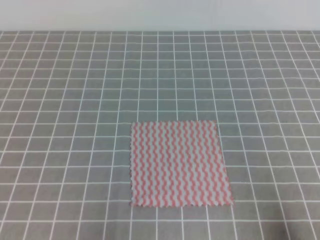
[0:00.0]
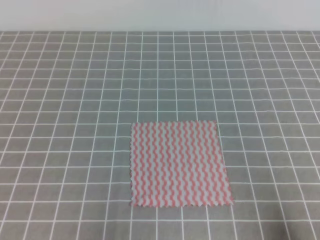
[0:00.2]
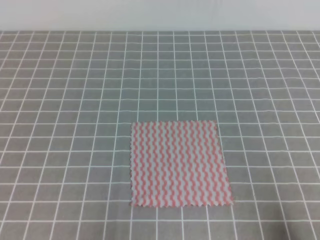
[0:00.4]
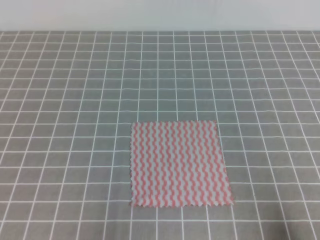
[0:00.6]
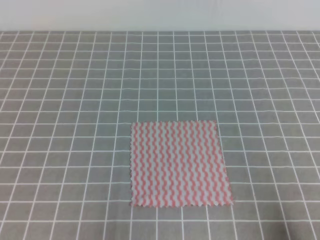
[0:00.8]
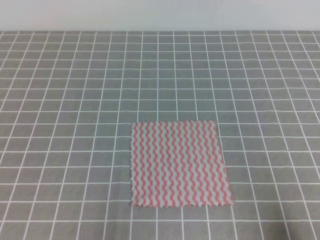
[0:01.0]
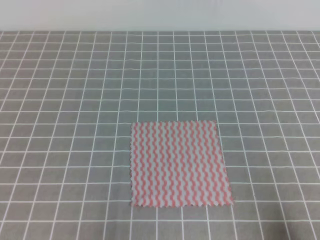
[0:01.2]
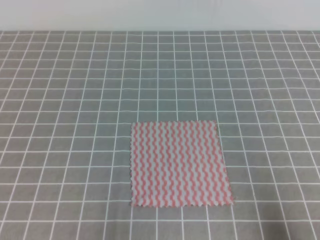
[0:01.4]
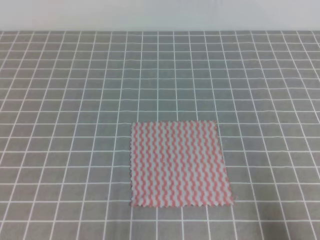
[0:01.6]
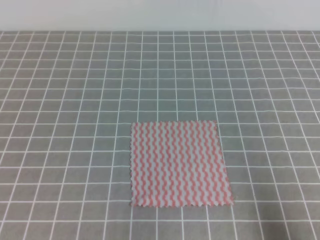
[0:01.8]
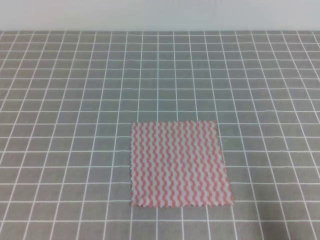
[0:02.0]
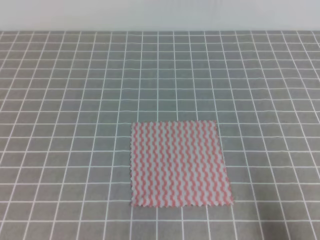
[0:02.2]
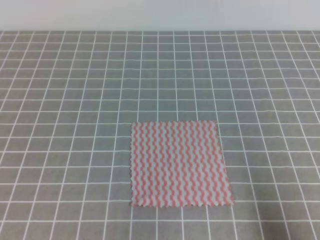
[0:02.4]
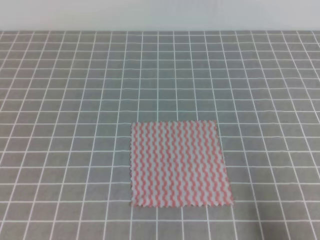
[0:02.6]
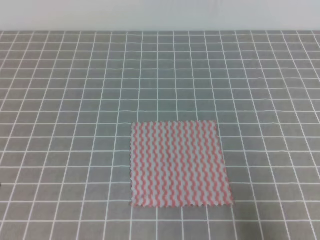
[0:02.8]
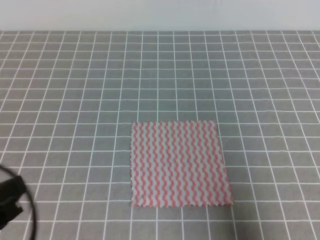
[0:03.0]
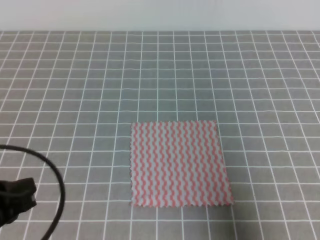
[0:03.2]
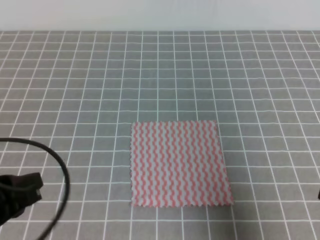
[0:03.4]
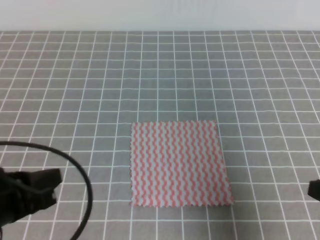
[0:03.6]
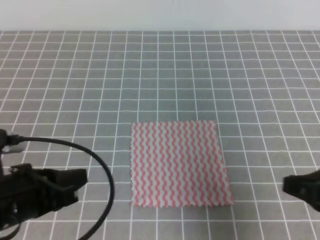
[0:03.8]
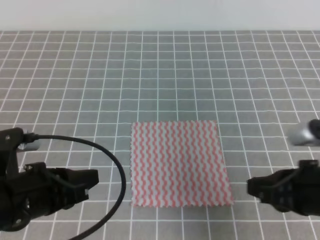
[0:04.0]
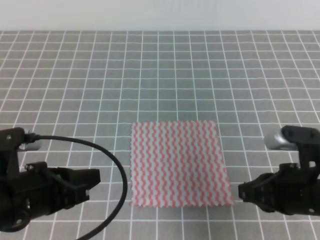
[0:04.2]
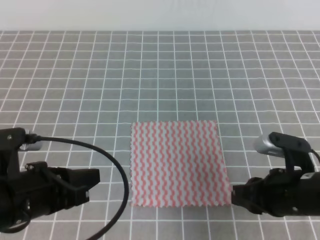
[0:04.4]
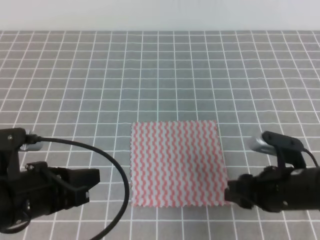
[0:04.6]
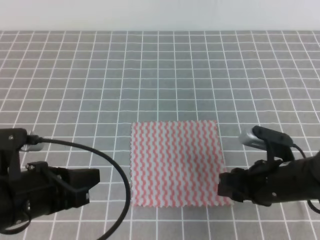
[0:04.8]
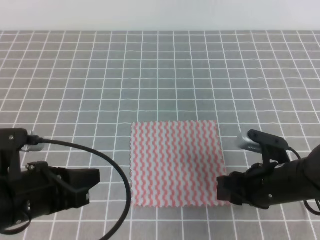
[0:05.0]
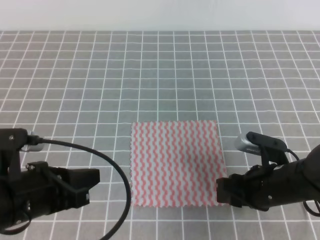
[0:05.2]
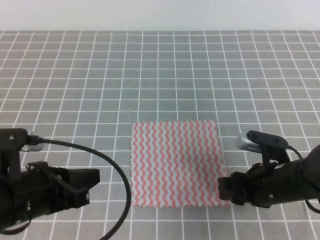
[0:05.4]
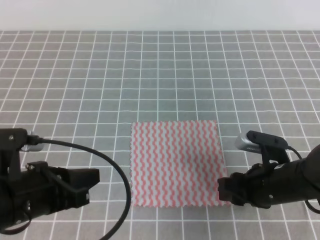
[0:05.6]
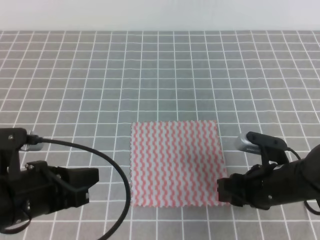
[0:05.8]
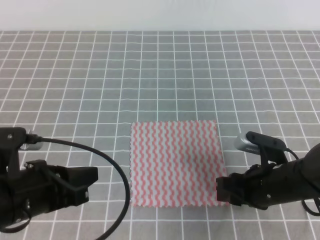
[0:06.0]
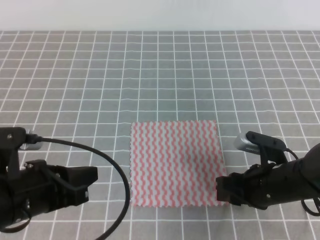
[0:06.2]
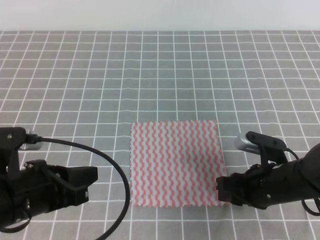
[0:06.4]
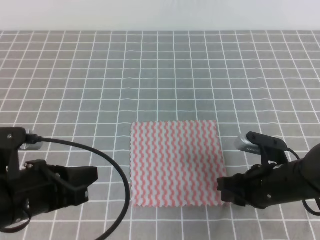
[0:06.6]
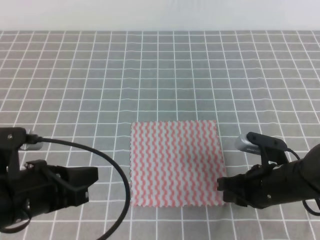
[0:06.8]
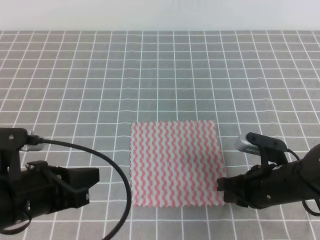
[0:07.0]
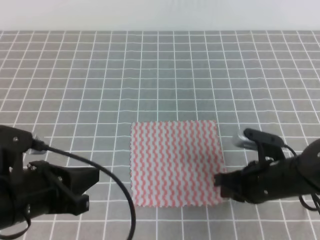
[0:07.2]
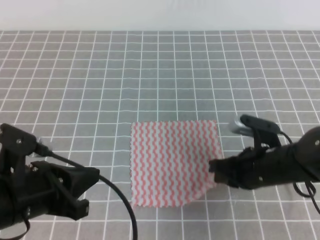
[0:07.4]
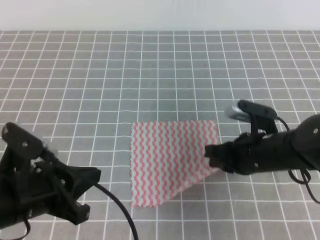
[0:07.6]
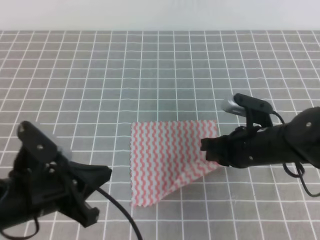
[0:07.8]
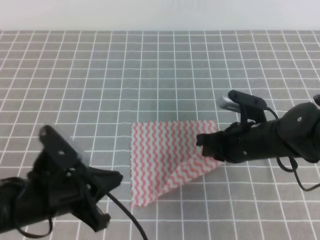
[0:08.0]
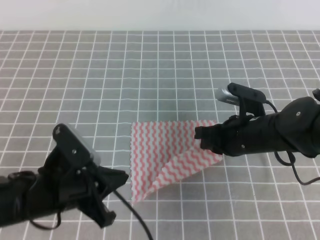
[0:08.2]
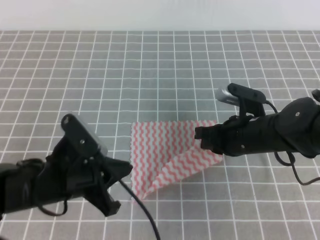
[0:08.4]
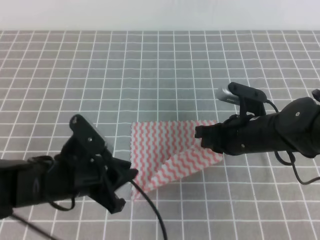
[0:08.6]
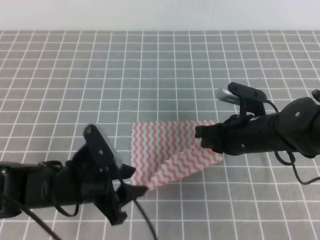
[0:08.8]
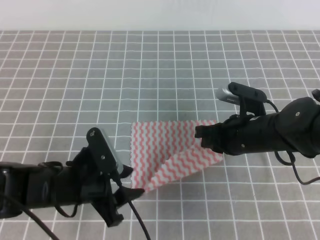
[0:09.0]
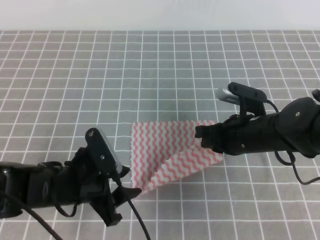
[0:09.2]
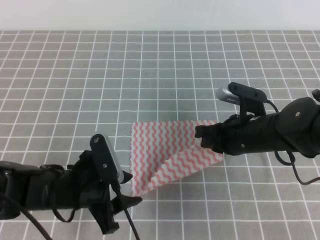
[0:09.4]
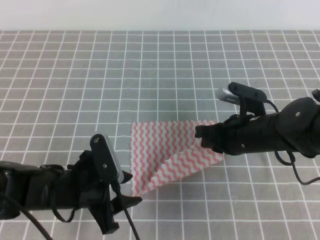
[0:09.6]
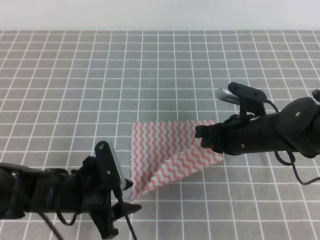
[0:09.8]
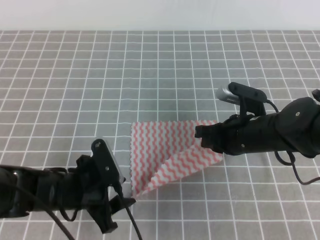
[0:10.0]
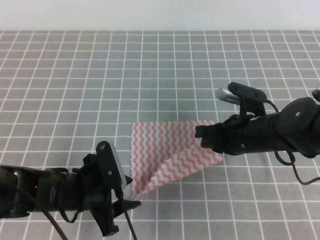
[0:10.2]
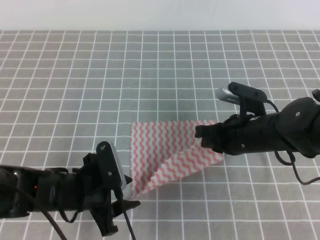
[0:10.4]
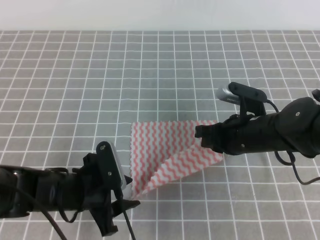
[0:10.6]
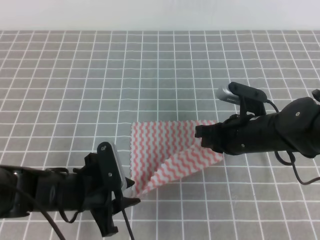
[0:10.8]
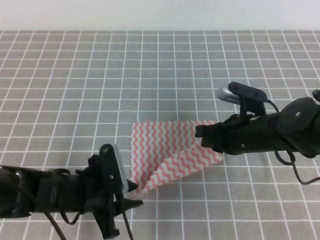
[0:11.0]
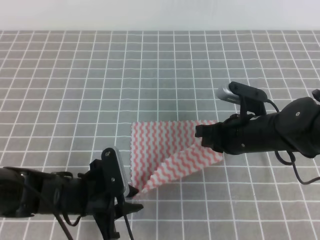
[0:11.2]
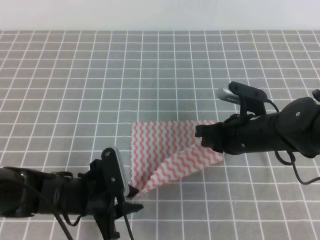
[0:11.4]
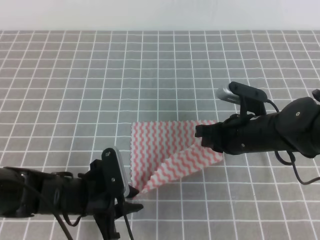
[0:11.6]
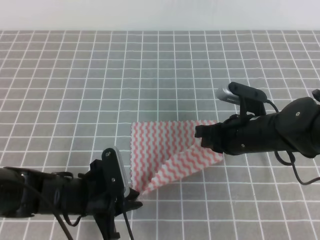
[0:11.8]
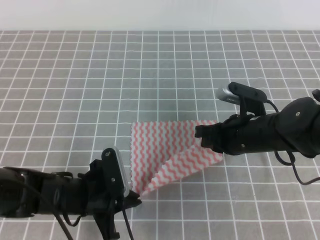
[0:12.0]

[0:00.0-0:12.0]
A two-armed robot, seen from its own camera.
0:01.6 to 0:03.0: Both grippers travel together upward, about 5 cm.
0:03.0 to 0:04.4: The left gripper shifts about 10 cm forward and to the right. The right gripper shifts some 15 cm forward, to the left and downward, and opens its fingers.
0:04.4 to 0:06.0: The right gripper ends up approximately 5 cm from where it was, and opens.
0:06.0 to 0:07.6: The right gripper closes its fingers.
0:07.6 to 0:09.0: The left gripper heads downward and forward, covering roughly 10 cm, and opens its fingers.
0:09.0 to 0:10.4: The grippers stay close to where they were, moving slightly.
0:10.4 to 0:12.0: The left gripper closes.

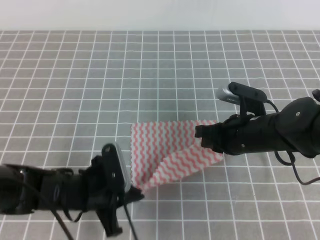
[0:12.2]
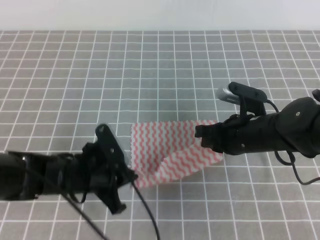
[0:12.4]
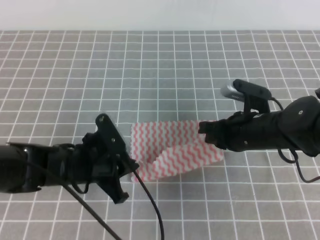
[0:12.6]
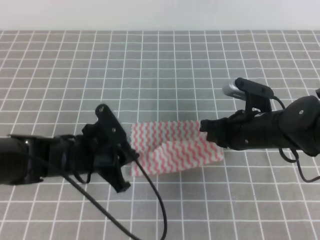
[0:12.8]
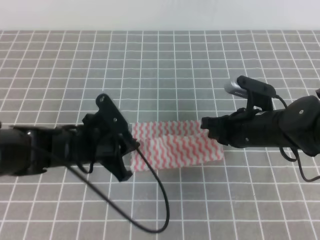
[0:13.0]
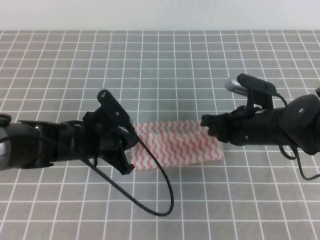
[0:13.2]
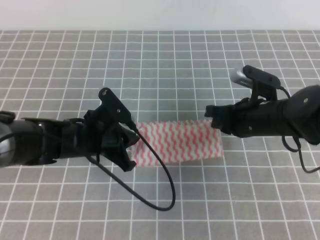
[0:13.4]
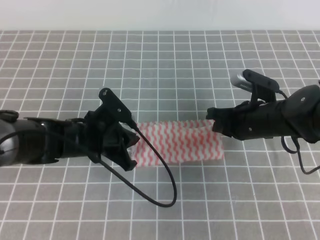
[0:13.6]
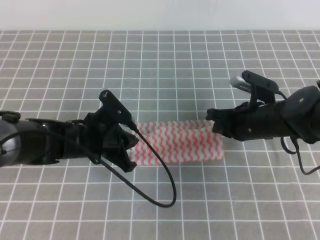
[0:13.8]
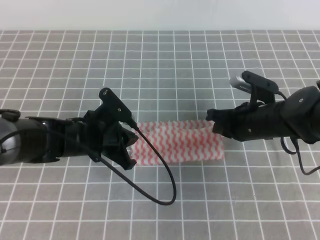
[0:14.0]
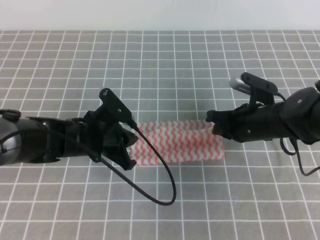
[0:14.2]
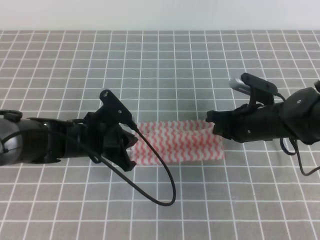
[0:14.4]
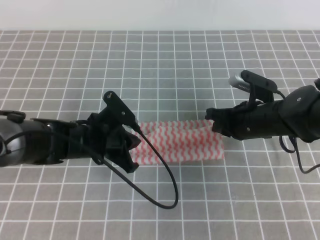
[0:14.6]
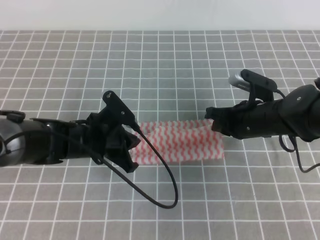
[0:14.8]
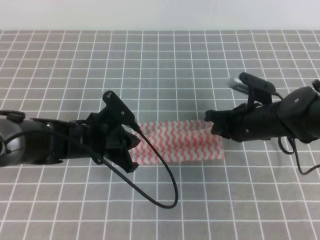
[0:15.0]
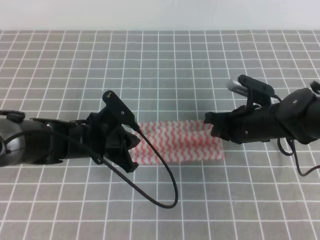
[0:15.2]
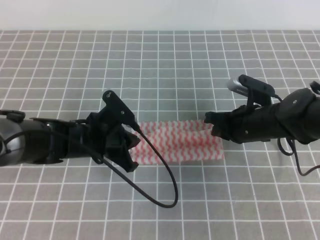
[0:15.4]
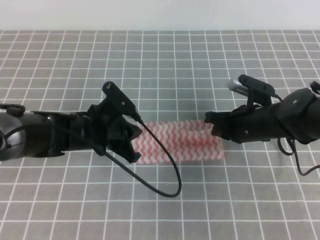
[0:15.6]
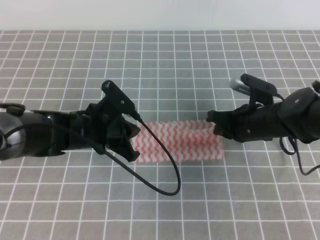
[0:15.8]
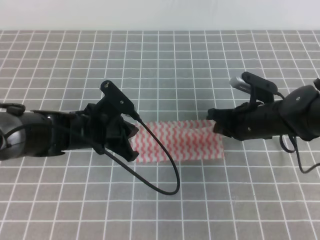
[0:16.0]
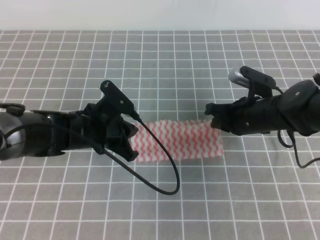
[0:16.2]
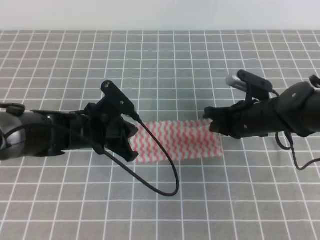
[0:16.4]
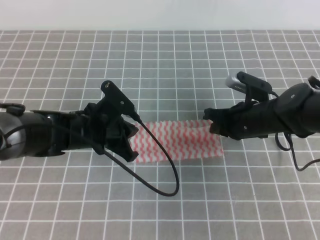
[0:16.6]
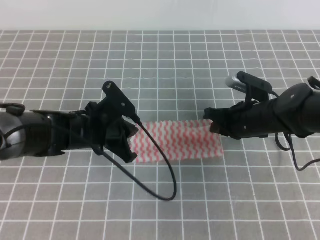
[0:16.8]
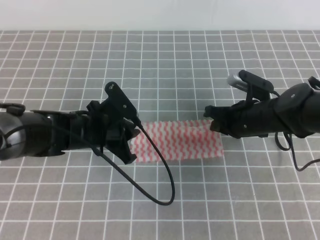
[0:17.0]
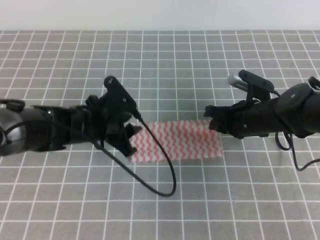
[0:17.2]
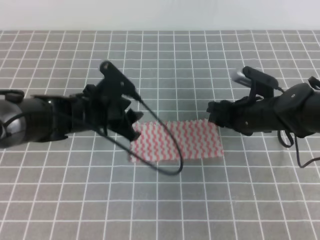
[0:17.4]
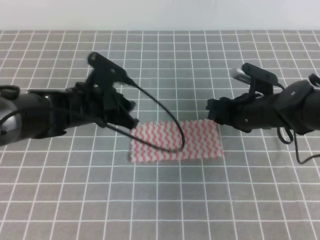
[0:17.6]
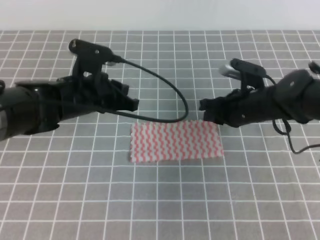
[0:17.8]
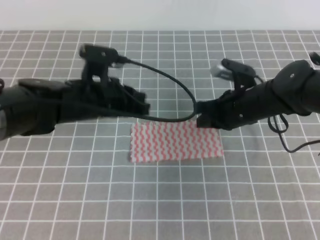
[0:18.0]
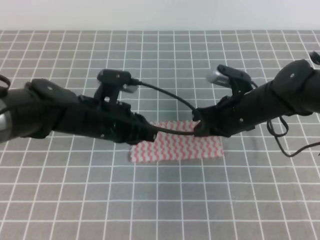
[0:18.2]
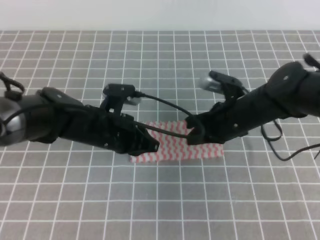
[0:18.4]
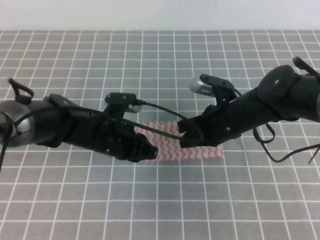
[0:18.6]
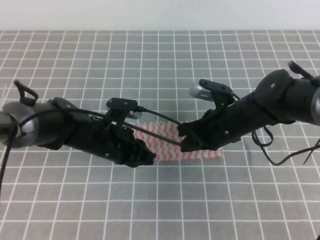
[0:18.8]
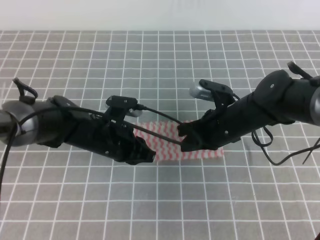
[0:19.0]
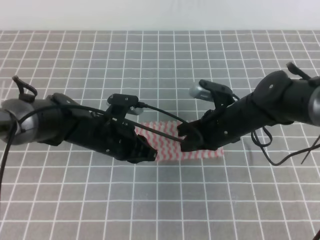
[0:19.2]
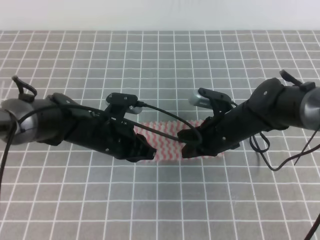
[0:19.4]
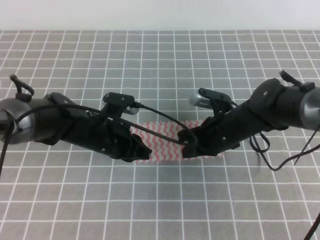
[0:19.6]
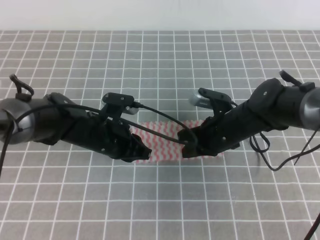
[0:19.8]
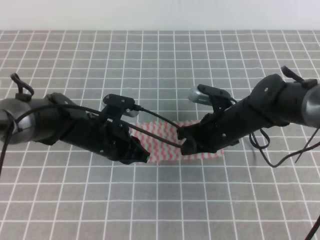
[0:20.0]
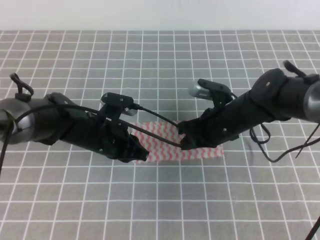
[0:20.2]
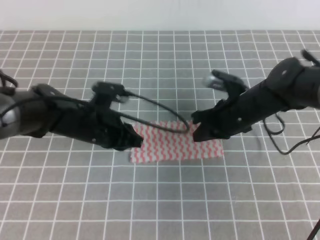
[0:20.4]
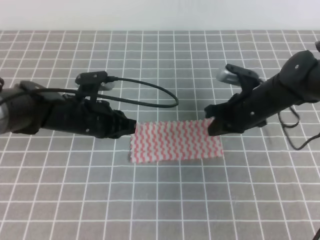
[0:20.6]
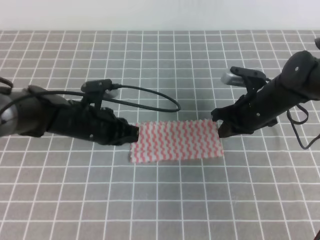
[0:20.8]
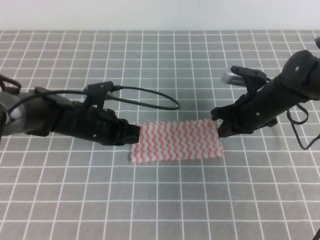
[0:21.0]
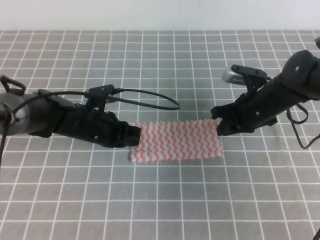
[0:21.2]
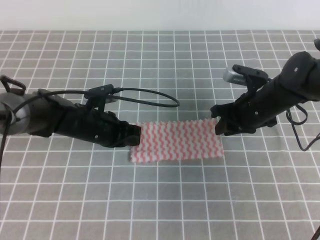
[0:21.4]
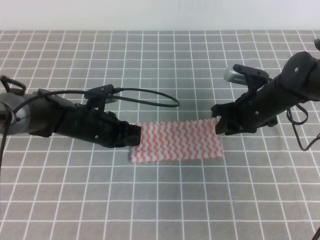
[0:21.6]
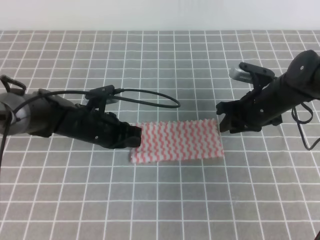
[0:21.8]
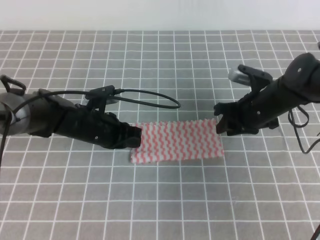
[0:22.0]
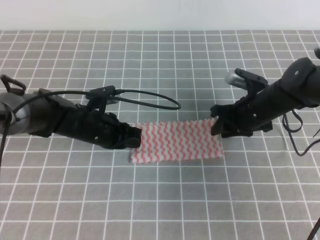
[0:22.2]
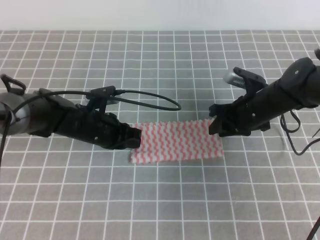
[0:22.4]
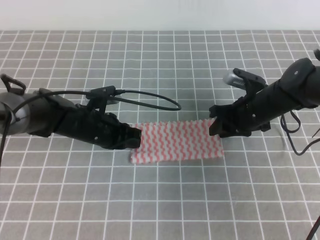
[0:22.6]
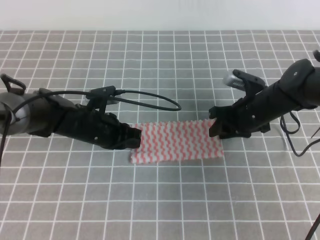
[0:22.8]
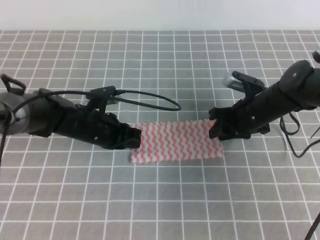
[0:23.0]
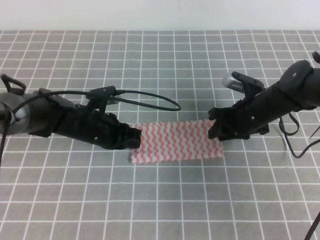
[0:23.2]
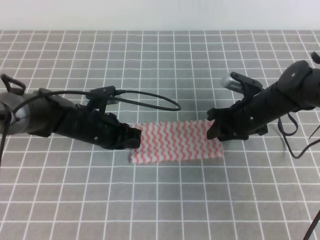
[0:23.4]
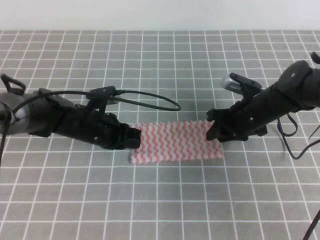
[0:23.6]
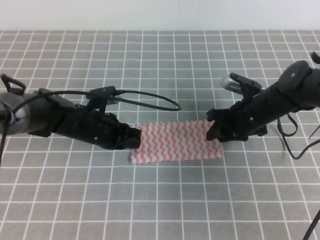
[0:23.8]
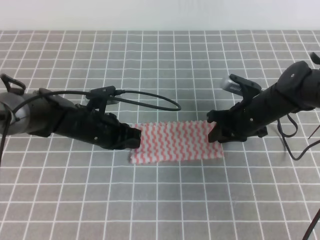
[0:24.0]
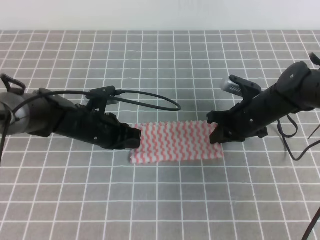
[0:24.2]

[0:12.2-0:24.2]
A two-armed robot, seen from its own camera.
0:12.2 to 0:13.8: The left gripper shifts about 10 cm forward.
0:13.8 to 0:15.2: Neither gripper changes place.
0:15.2 to 0:16.6: The grippers stay close to where they were, moving slightly.
0:16.6 to 0:18.2: The right gripper opens, then closes once more, while the left gripper opens and closes again.
0:18.2 to 0:19.8: The left gripper goes about 5 cm downward.
0:19.8 to 0:21.2: The right gripper shifts roughly 5 cm to the right.
0:21.2 to 0:22.6: The right gripper opens its fingers.
0:22.6 to 0:24.2: The right gripper closes its fingers.
